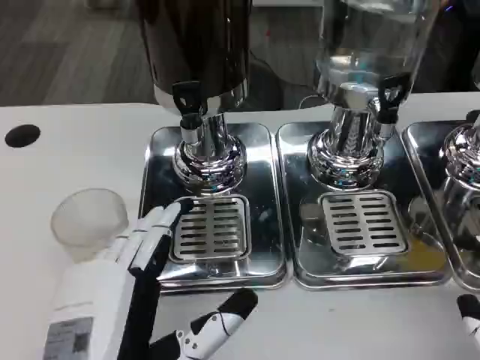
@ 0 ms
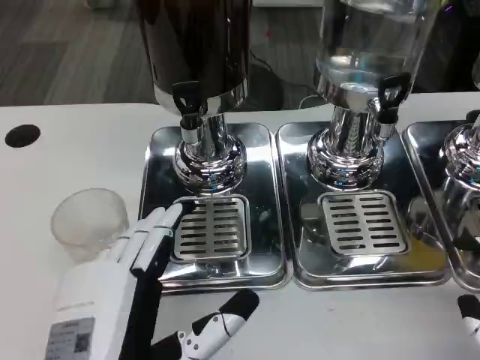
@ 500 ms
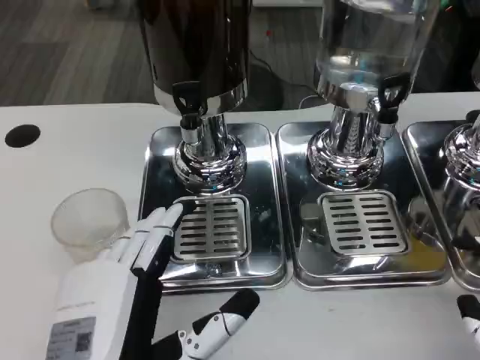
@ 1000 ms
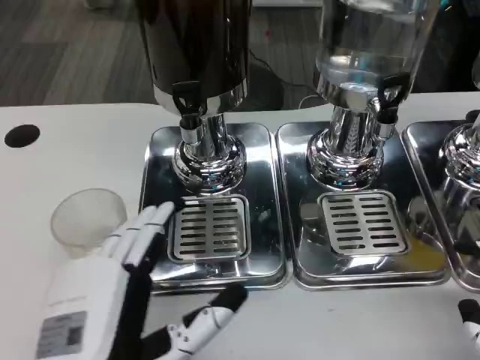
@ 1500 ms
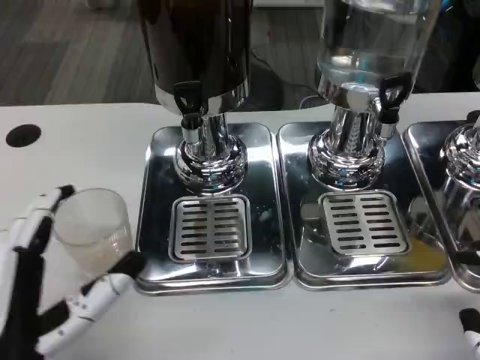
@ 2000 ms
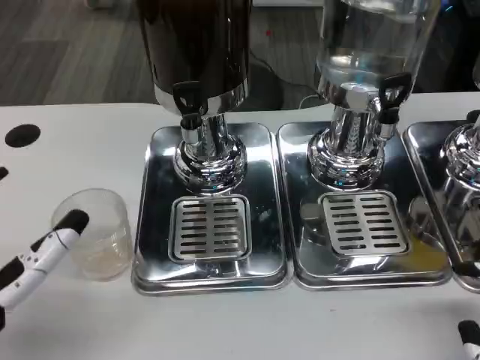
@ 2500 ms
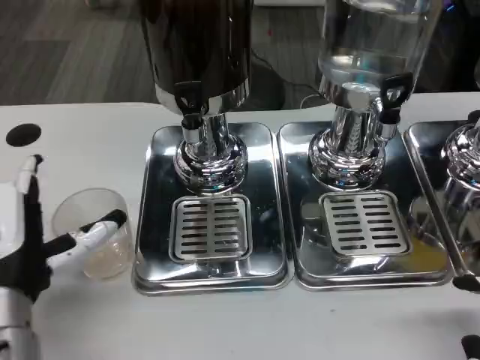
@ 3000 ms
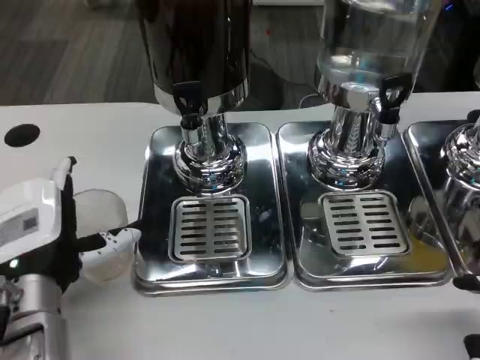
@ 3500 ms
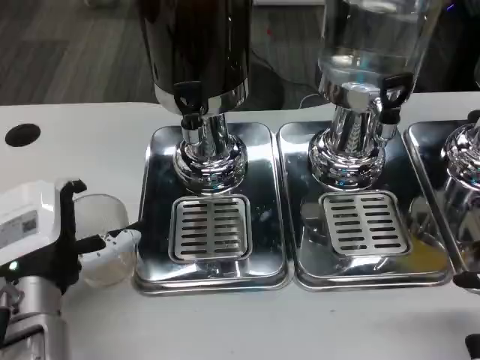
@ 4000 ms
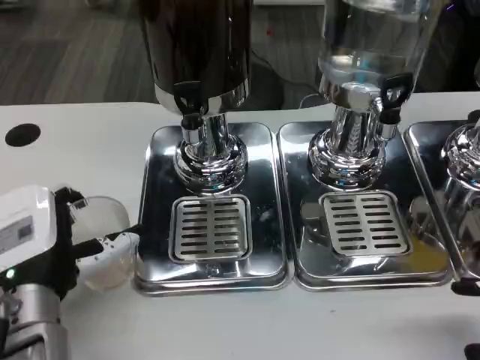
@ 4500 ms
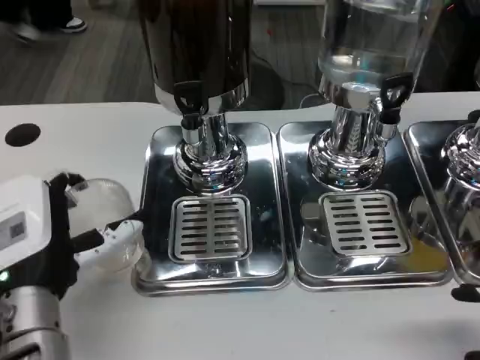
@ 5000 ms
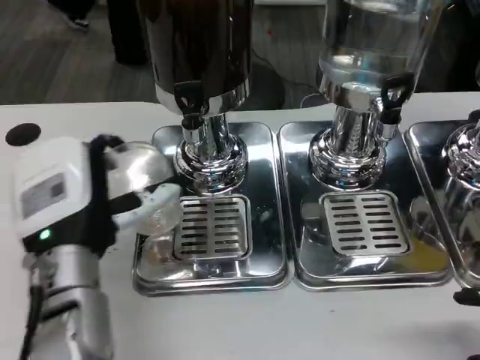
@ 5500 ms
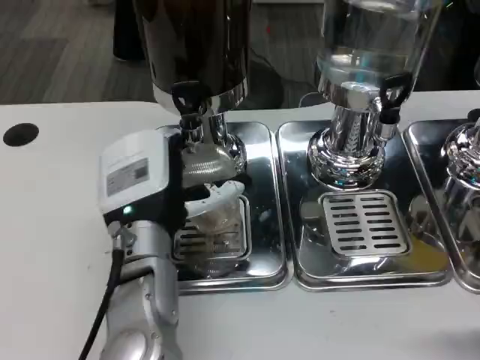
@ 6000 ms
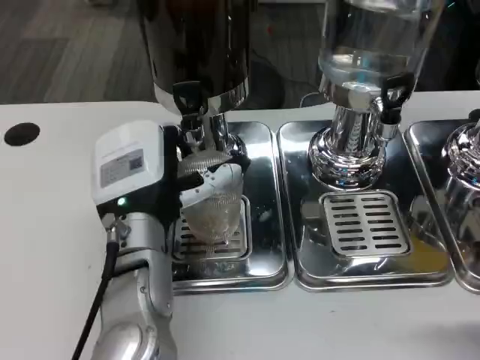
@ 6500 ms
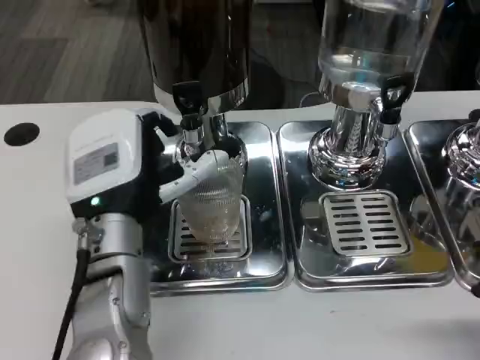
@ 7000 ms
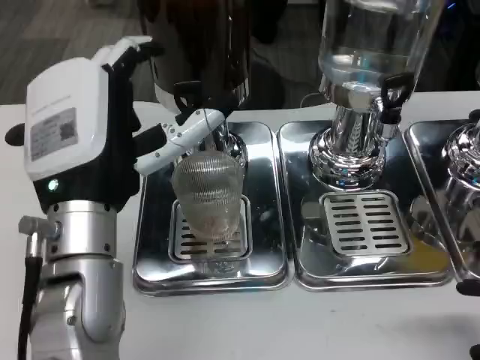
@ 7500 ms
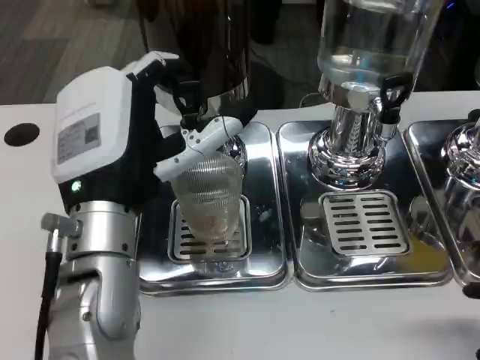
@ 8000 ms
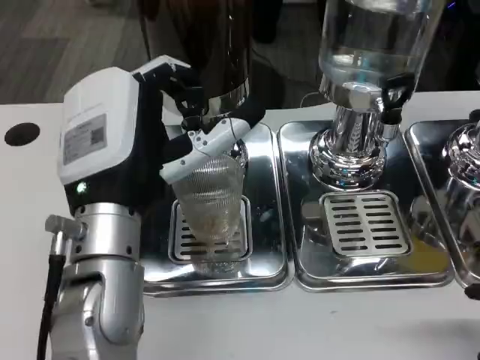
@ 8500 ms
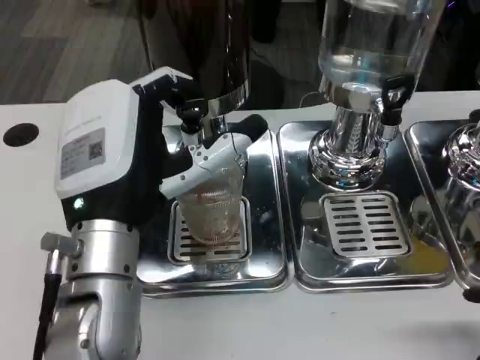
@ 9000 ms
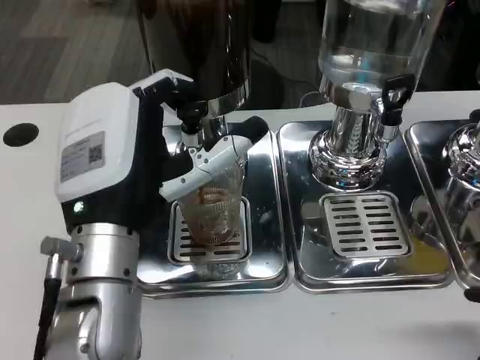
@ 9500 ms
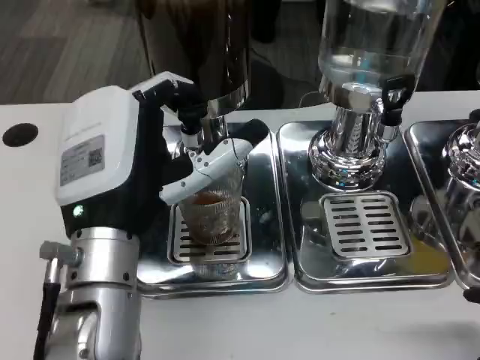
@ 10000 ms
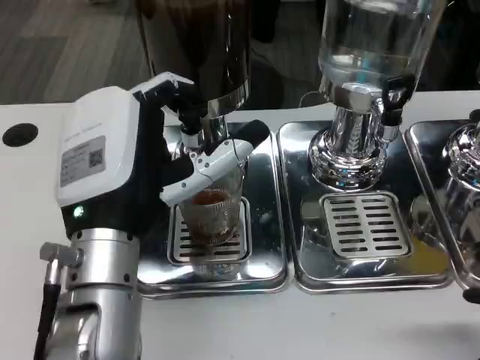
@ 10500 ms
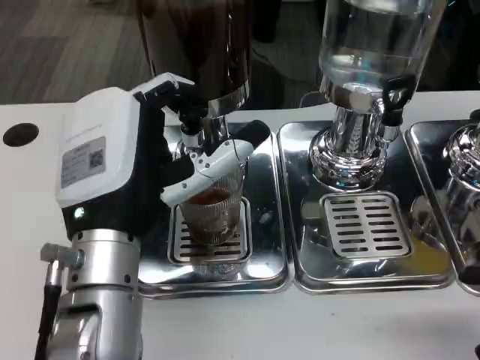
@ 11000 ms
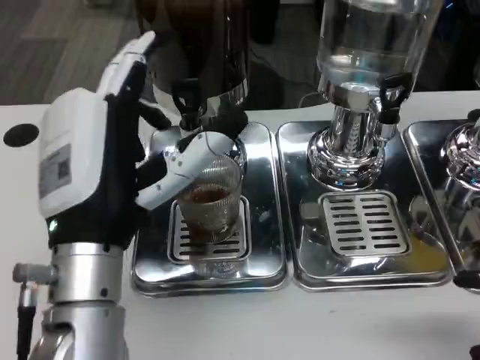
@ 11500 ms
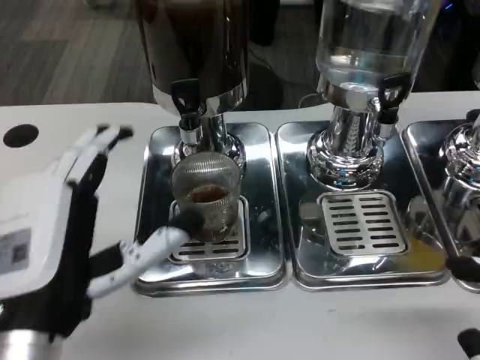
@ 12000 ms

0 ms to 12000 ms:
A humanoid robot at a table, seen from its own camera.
Task of the whole recording: Grasp the cup under the faucet to collect the drink, then remove the cup.
0 ms to 2000 ms: The left hand is displaced to the left by about 5 cm.
2000 ms to 4000 ms: The left hand shifts about 10 cm forward.
4000 ms to 6000 ms: The left hand moves to the right and forward, about 10 cm.
6000 ms to 8000 ms: The left hand shifts roughly 5 cm upward.
10000 ms to 12000 ms: The left hand travels backward and to the left by roughly 10 cm.

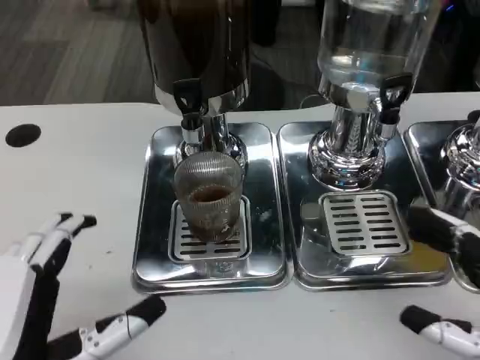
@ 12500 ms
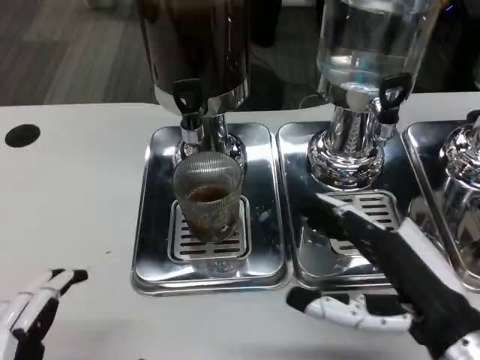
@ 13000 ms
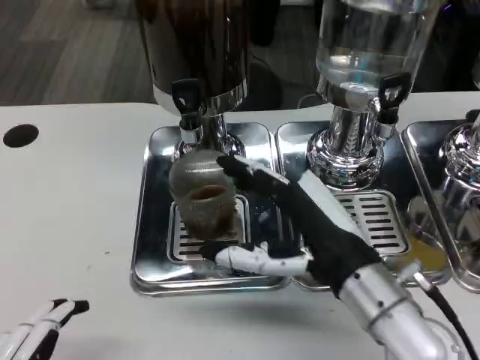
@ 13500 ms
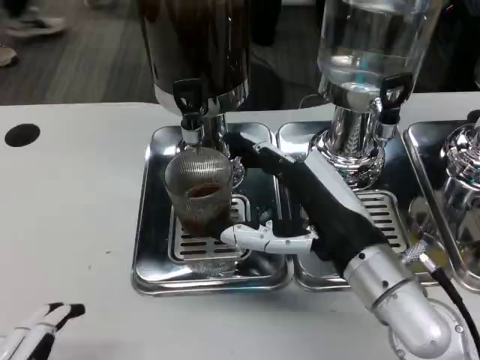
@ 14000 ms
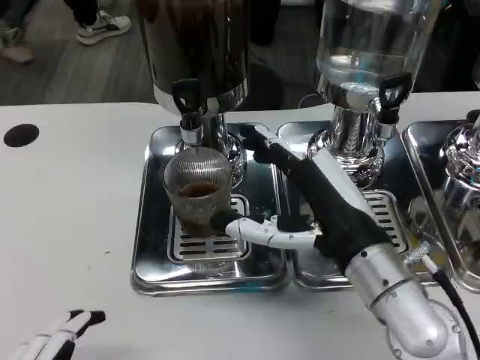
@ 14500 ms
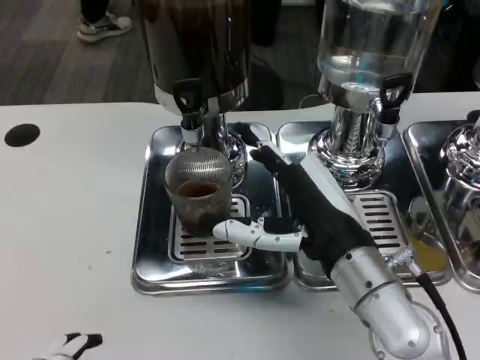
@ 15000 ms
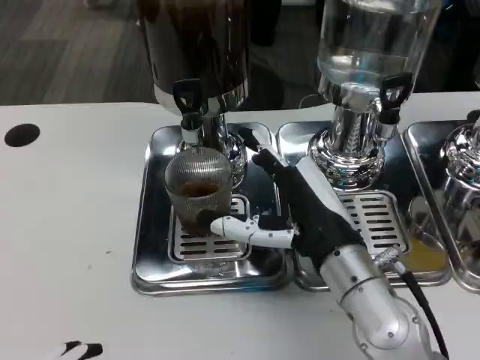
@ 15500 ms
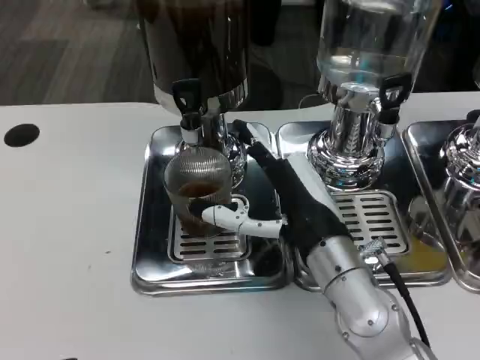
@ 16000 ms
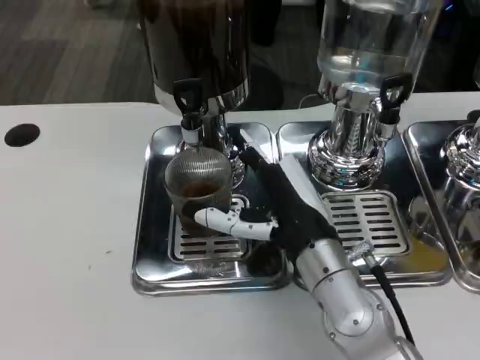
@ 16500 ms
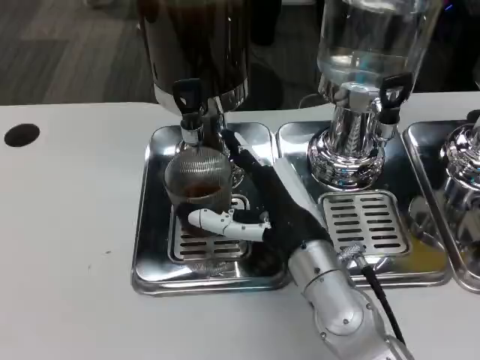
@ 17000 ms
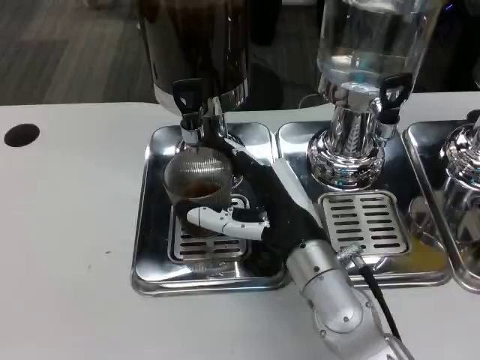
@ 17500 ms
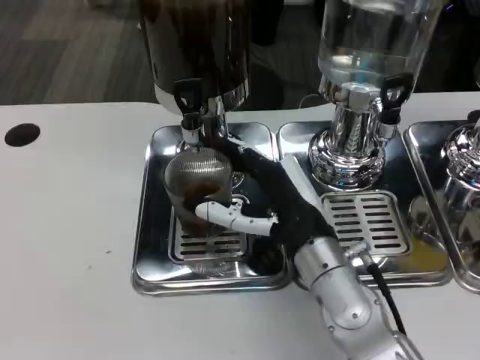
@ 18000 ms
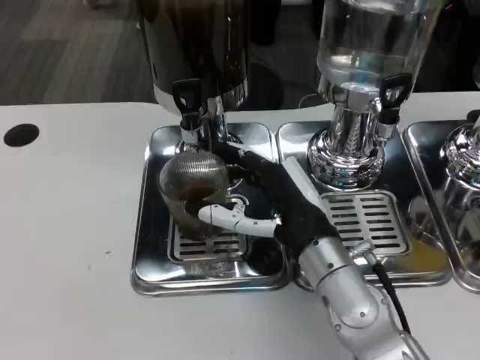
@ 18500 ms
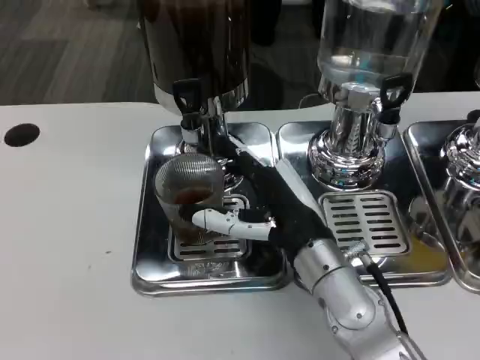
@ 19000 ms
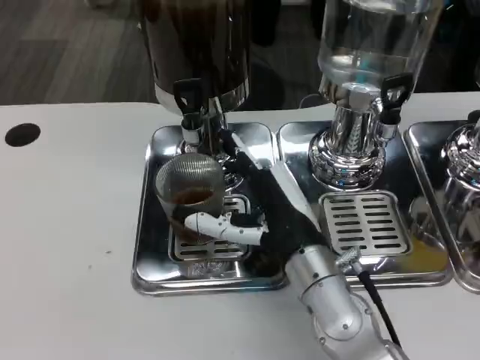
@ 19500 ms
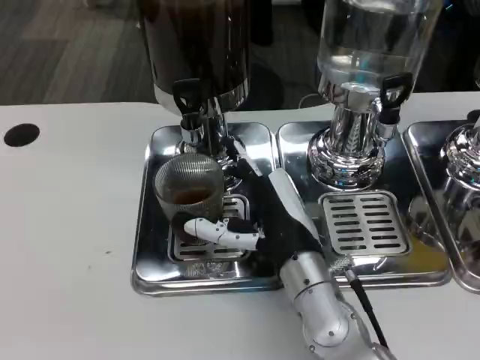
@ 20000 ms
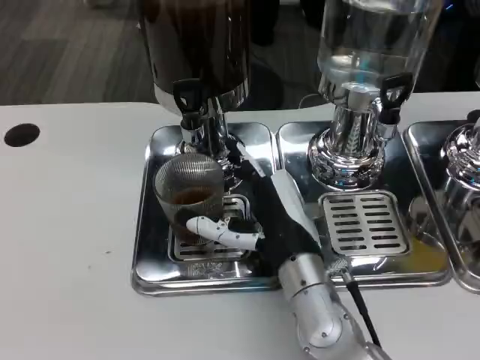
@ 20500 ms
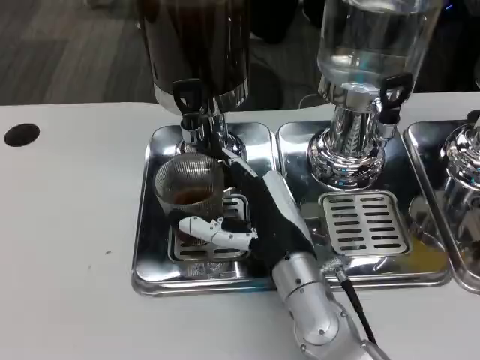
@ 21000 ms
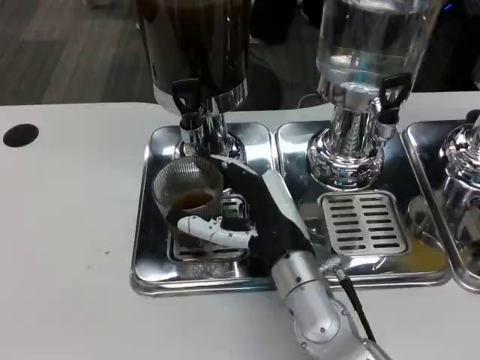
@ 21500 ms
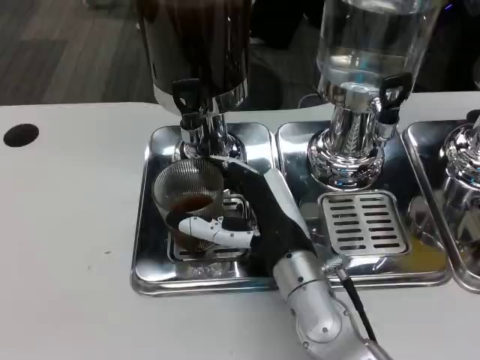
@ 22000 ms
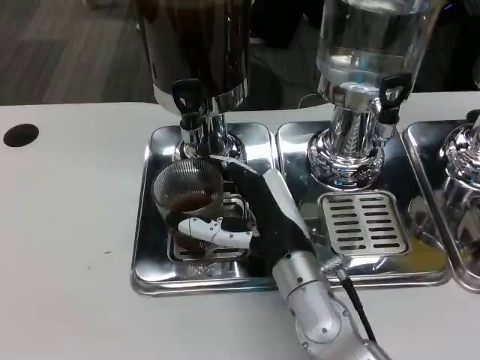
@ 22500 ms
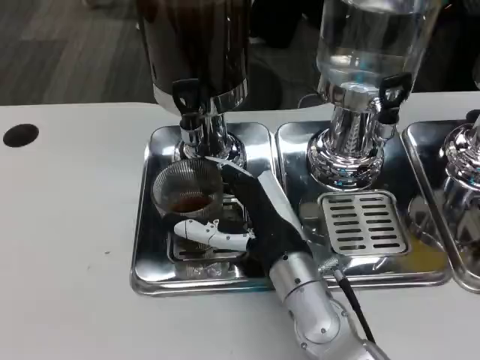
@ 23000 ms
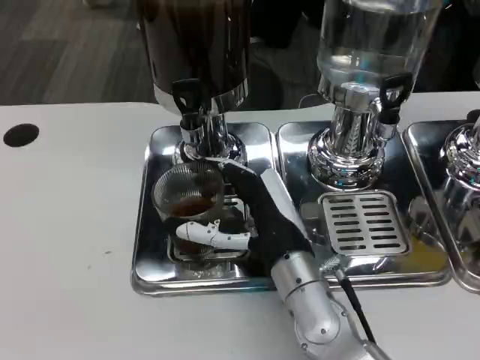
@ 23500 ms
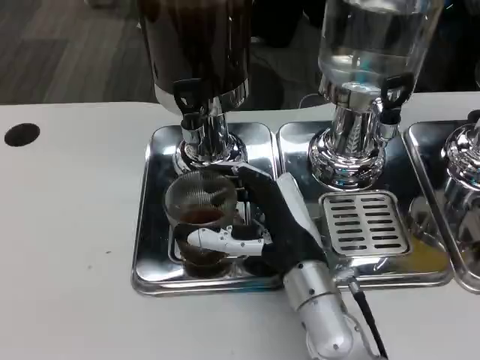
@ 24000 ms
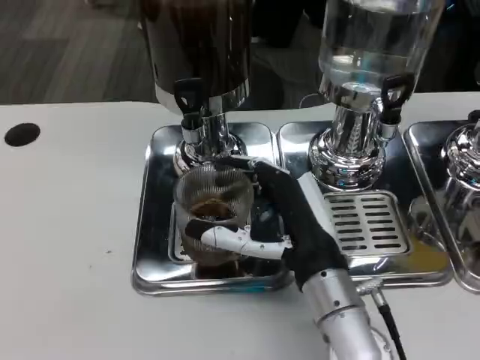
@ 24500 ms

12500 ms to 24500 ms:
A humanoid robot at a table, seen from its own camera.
Task of the whole recording: Grasp the cup under the faucet to collect the drink, then remove the cup.
12500 ms to 14500 ms: The right hand moves to the left and forward, some 20 cm, while the left hand heads backward, covering about 5 cm.
14500 ms to 16500 ms: The right hand ends up some 5 cm from where it was.
16500 ms to 24500 ms: The hands move only a little.

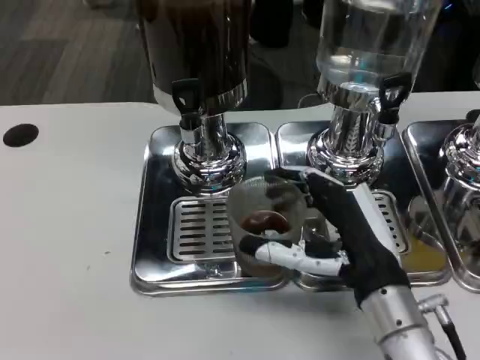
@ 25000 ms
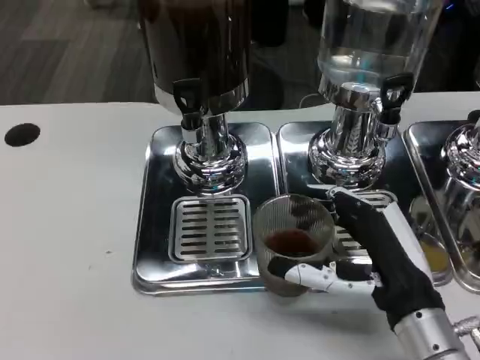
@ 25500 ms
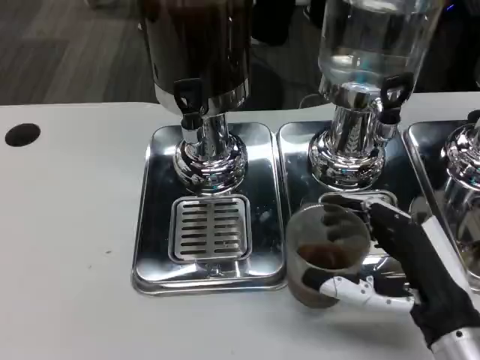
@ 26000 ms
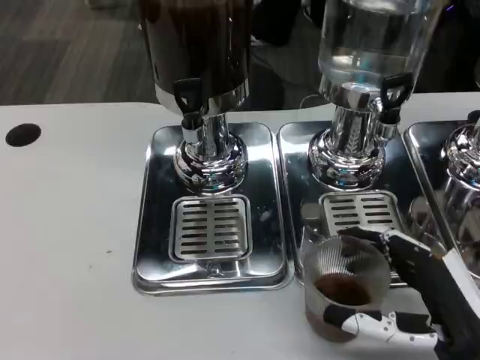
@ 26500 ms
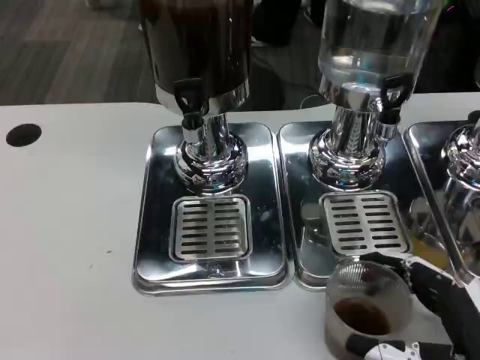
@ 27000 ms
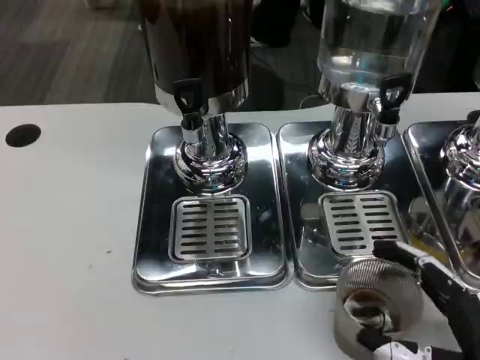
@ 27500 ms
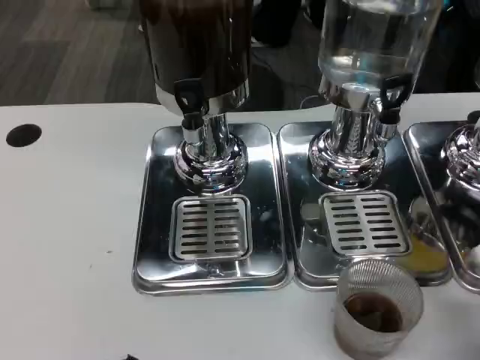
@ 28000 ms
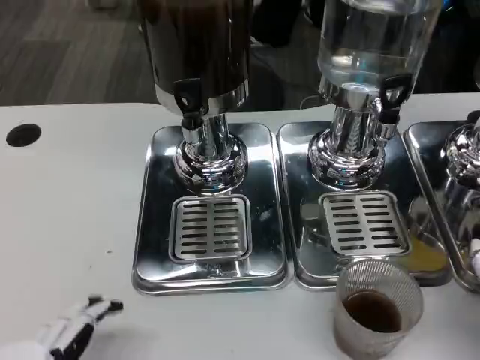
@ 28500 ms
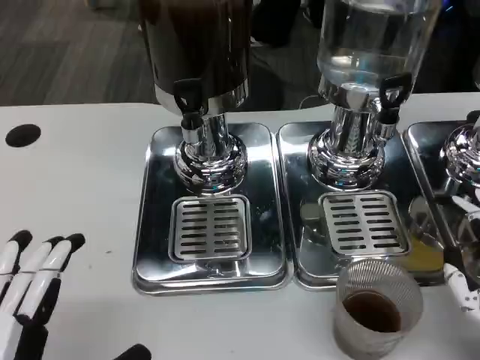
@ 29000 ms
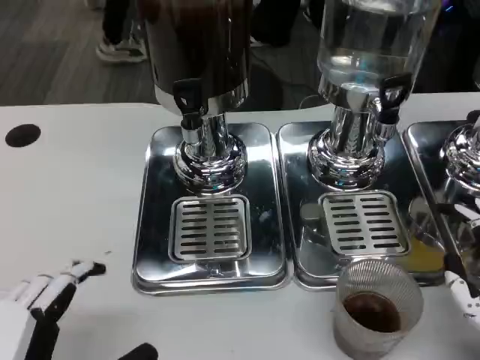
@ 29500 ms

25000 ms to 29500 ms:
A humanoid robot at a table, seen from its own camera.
Task of the whole recording: Grasp the cup under the faucet to collect the drink, then remove the cup.
25000 ms to 27000 ms: The right hand shifts approximately 15 cm to the right and backward.
27000 ms to 29500 ms: The right hand moves approximately 5 cm.
